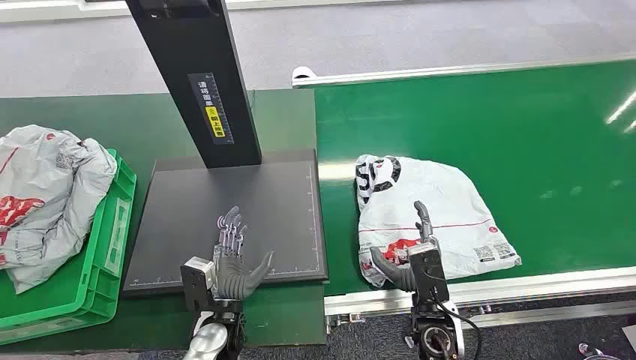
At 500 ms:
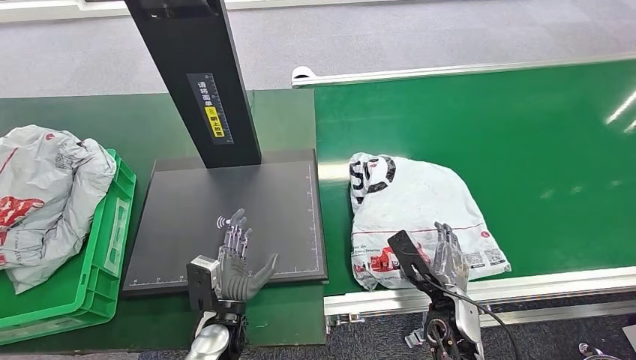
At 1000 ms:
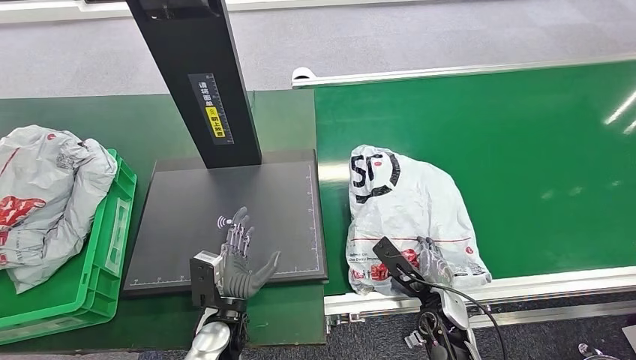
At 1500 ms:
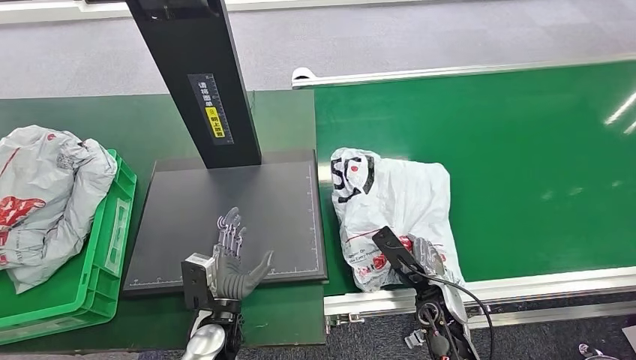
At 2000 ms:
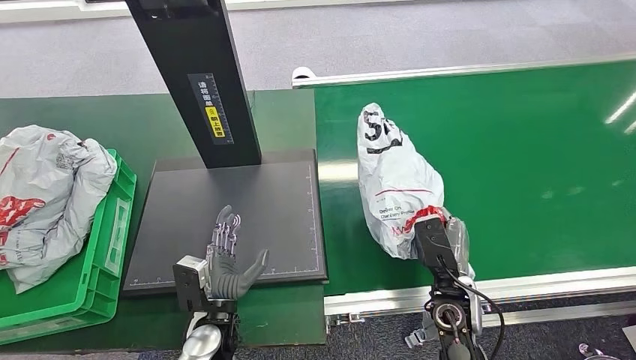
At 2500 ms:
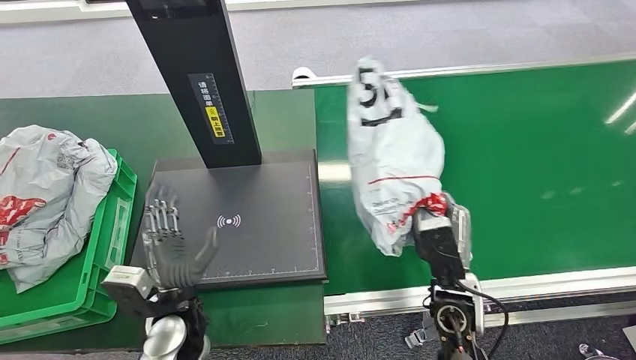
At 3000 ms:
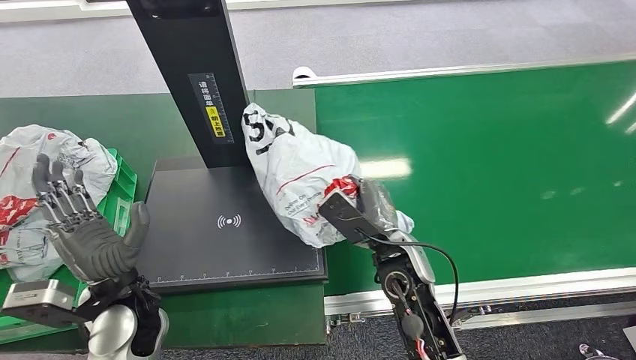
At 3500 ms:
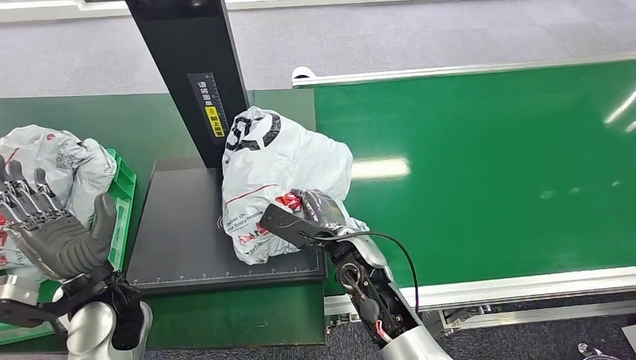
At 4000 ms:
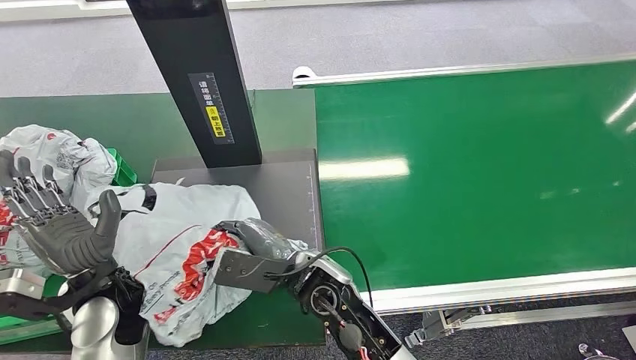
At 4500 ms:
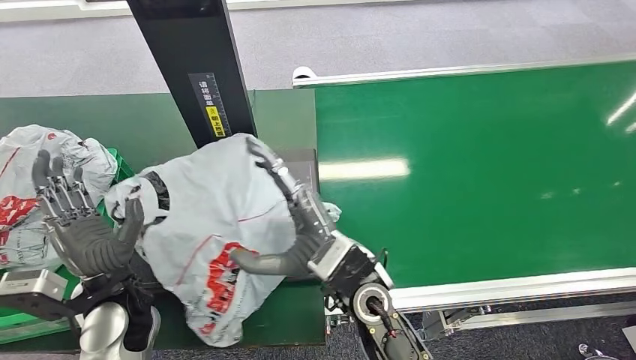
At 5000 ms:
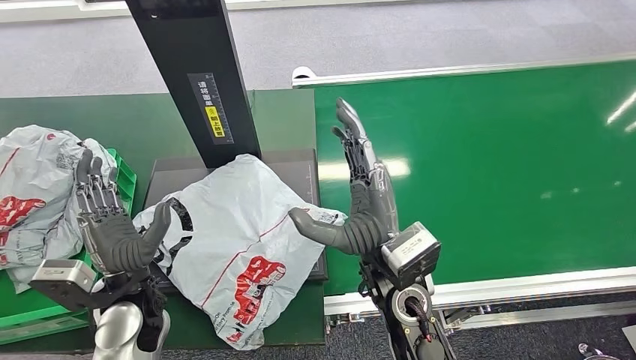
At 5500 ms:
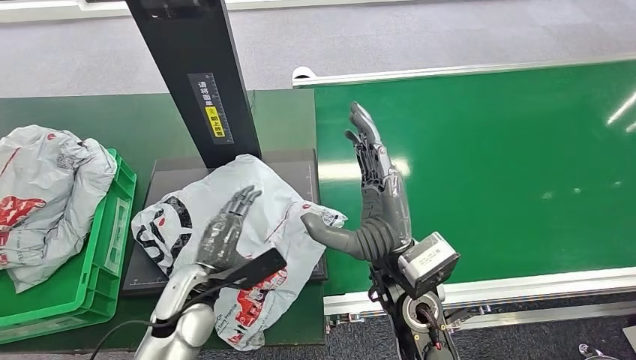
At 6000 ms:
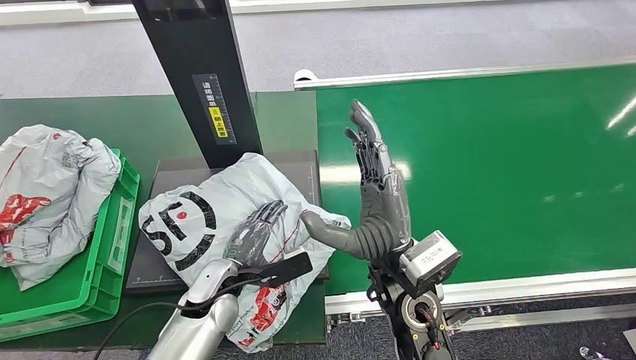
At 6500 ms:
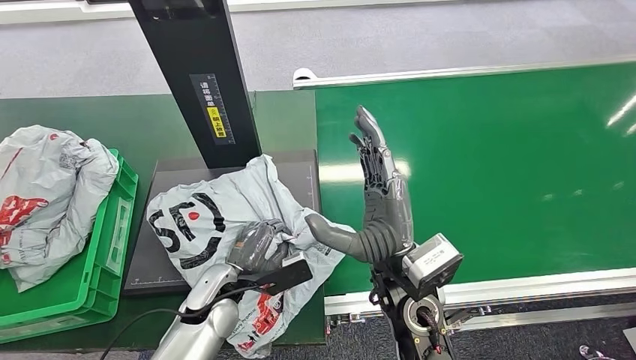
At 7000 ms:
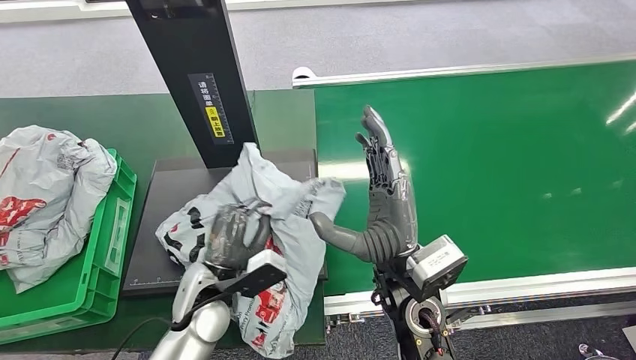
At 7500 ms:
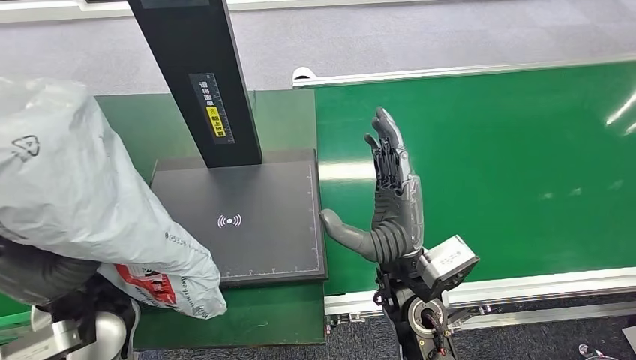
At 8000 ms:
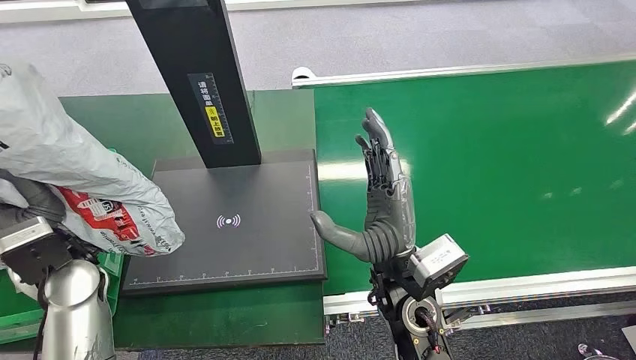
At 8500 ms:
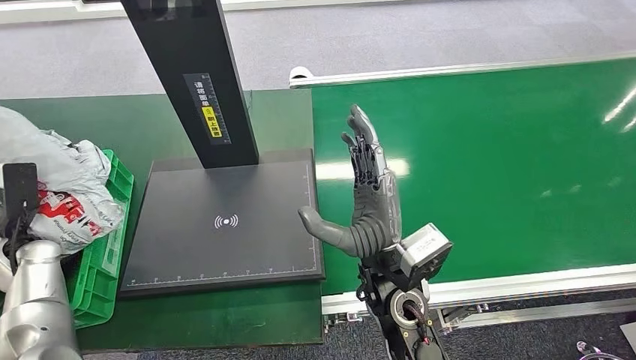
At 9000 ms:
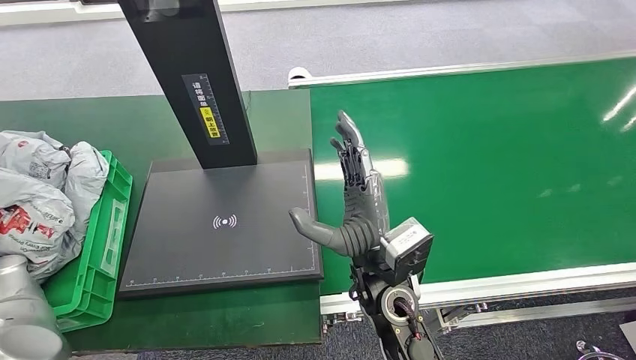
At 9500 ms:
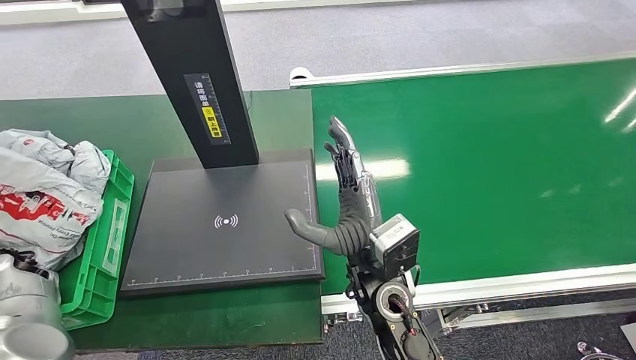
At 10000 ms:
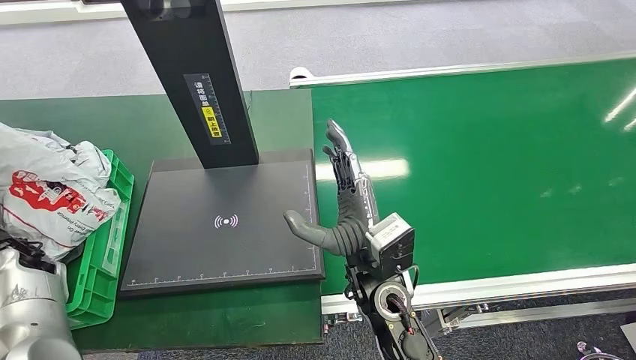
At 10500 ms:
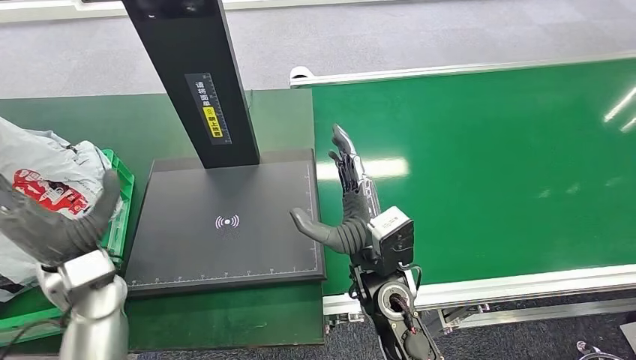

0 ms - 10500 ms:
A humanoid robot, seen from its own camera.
Task of the whole recording: Weigh the package on the weighing device and place it in the left basket.
Step, 0 ms - 2500 ms: Pick up the package from the conveyor belt.
Step, 3000 ms - 5000 ms: Place the package onto the inbound machine.
Step, 5500 ms - 7000 ms: Pick up the package from the inbound machine.
Step, 7500 ms - 10500 ms: Place the package into the parcel locker.
8500 ms - 10500 ms: The left hand heads to the right, covering approximately 20 cm.
